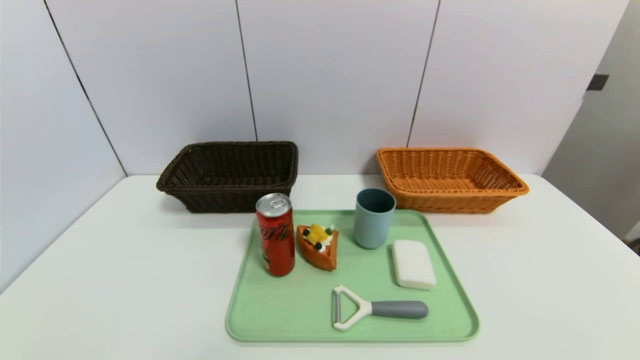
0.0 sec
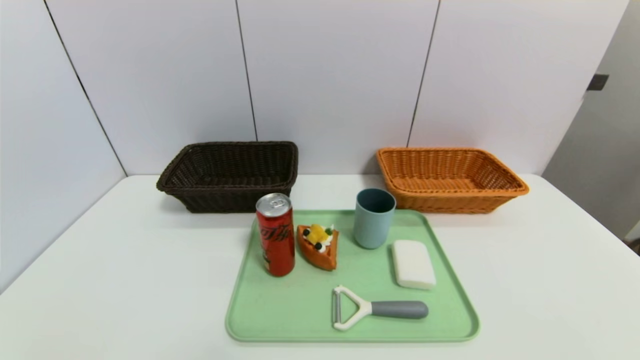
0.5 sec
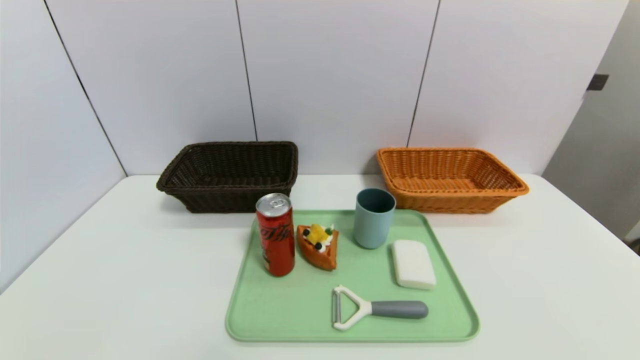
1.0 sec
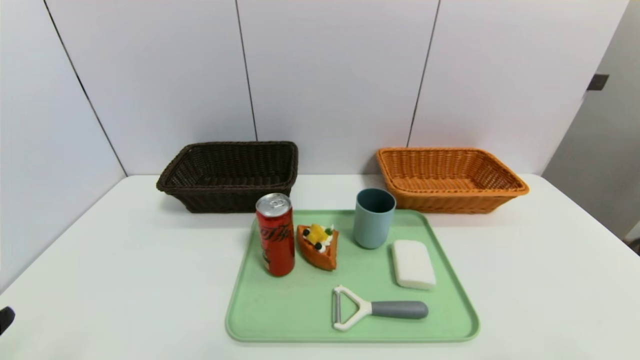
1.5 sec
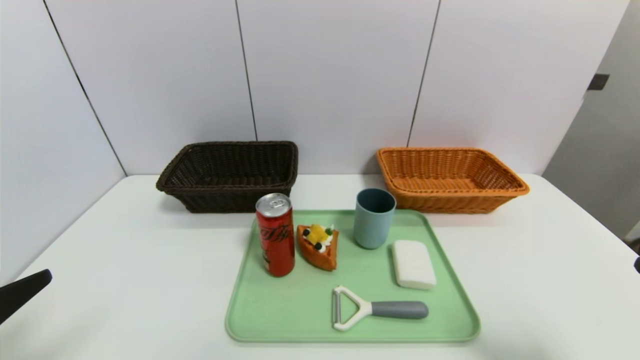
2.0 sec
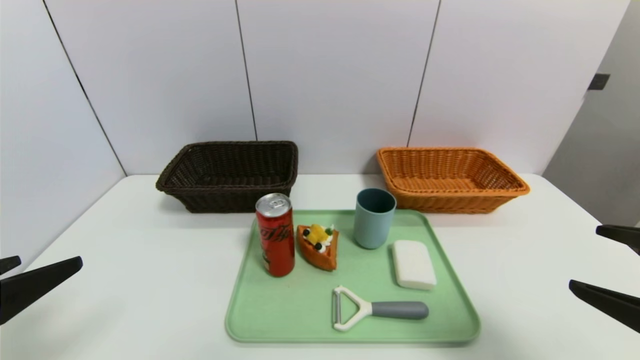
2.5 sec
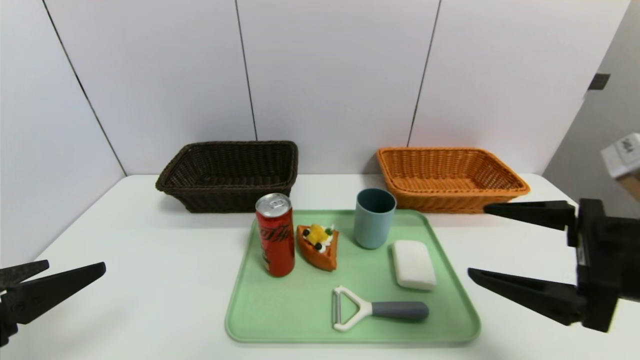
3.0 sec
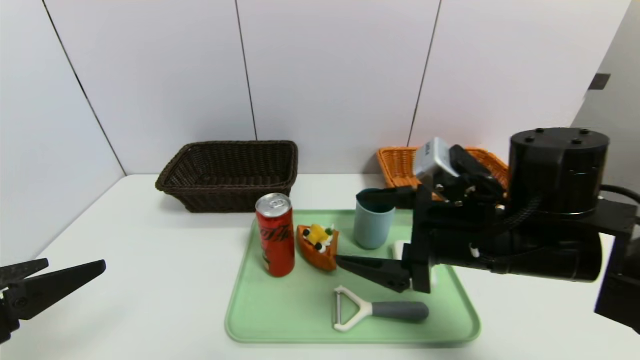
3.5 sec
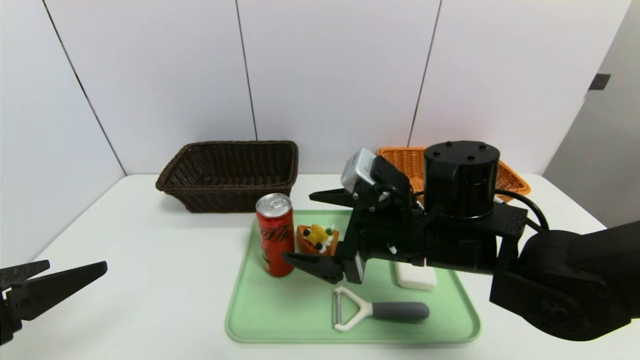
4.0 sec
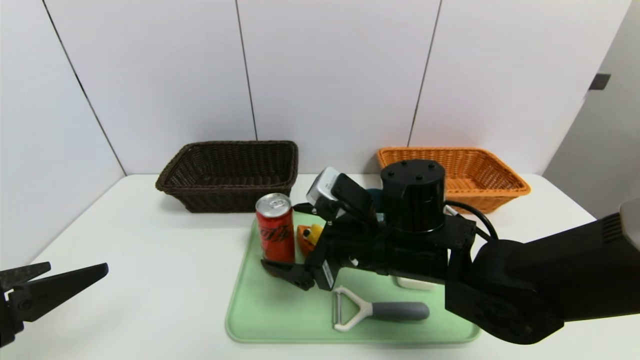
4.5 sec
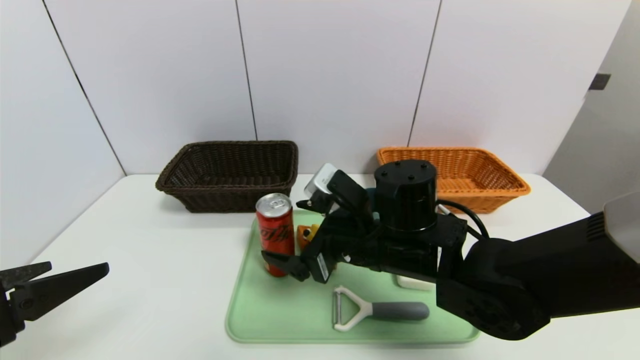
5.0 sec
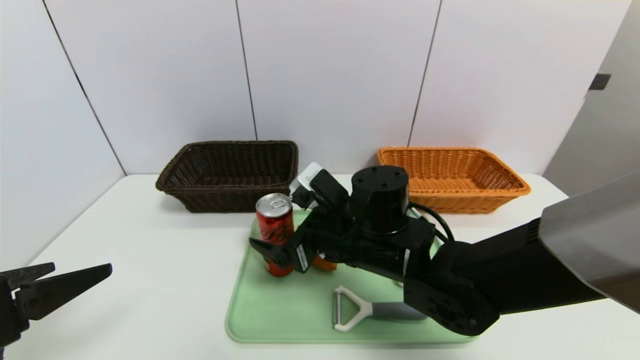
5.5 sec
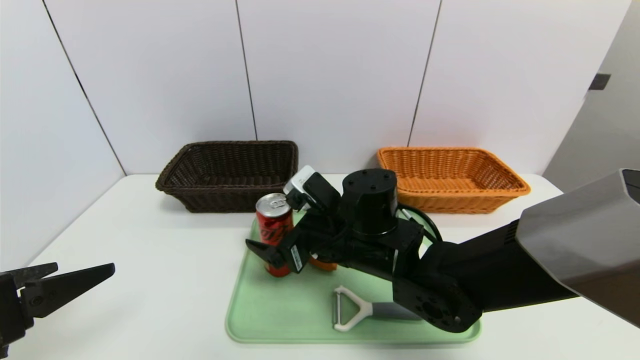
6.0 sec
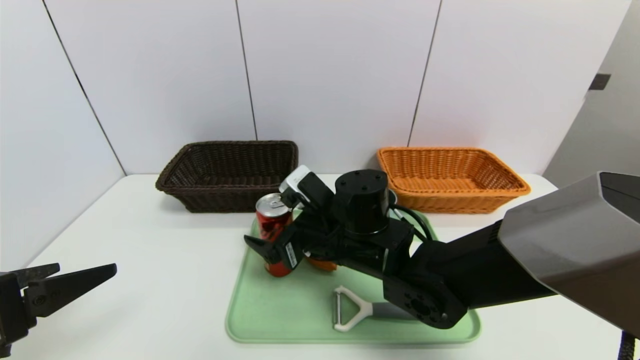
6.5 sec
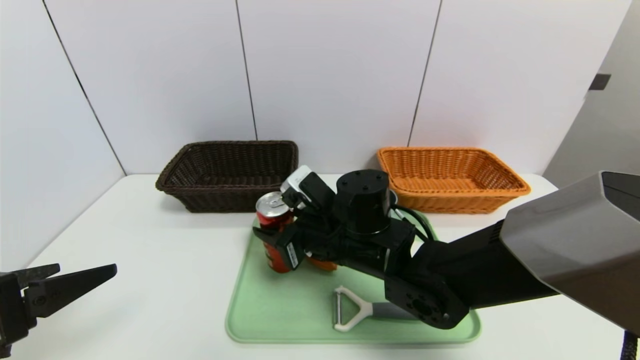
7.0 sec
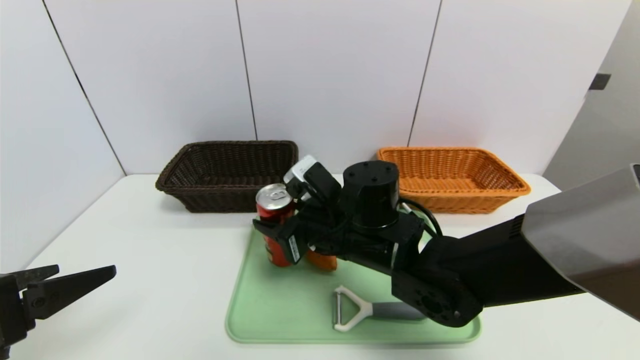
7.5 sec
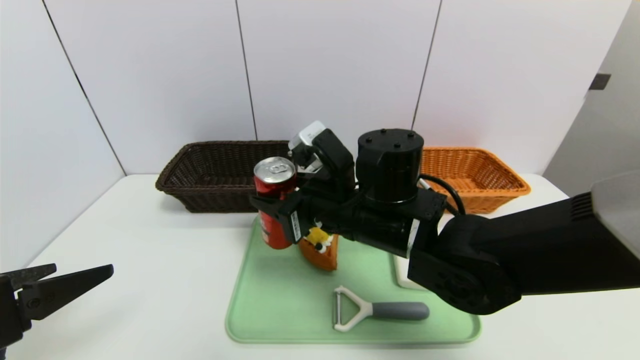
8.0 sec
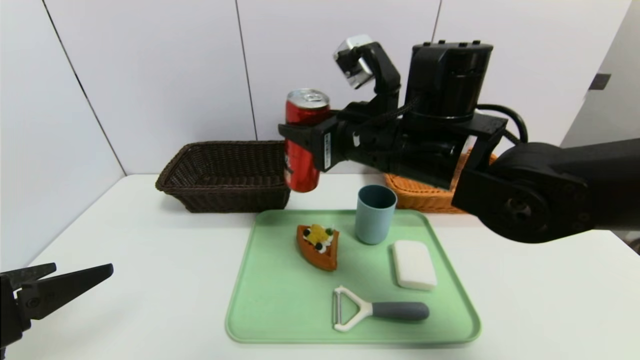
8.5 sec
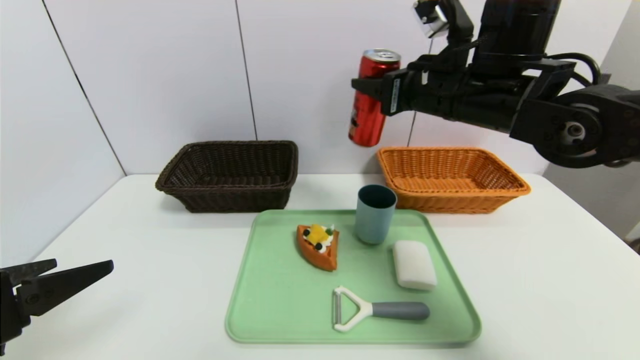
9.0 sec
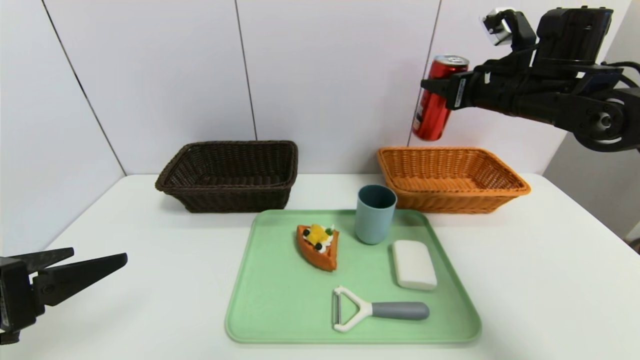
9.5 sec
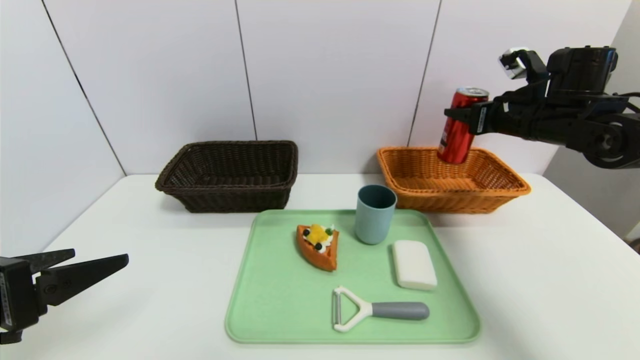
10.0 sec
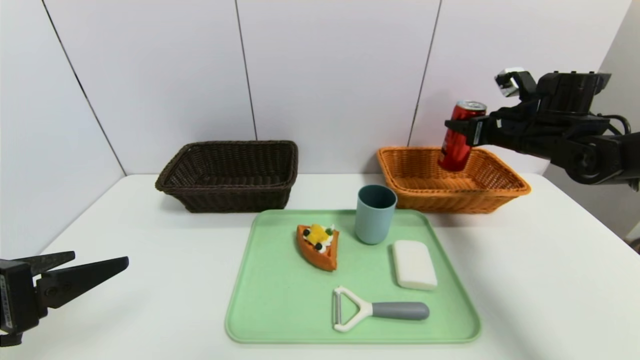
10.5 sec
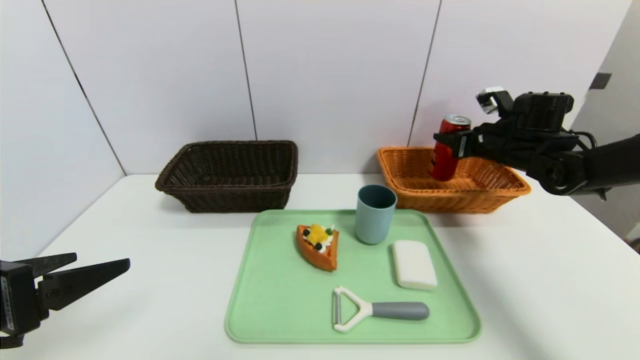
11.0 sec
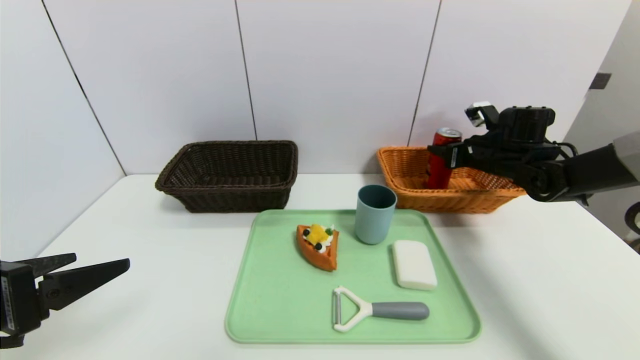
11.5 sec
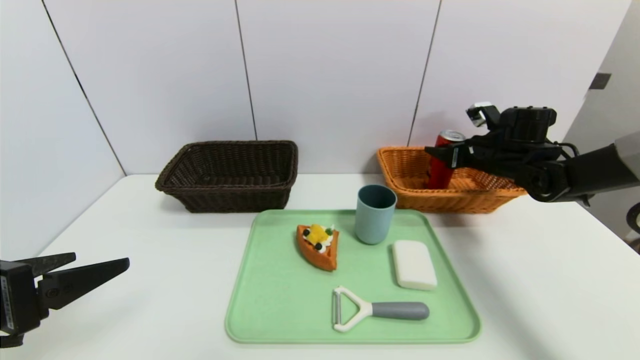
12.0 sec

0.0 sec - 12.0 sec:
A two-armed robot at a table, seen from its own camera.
Task of the whole recording: place the food in the right basket with the right gripper, and place the non food items in the left basket with the left gripper.
0.0 sec - 2.0 sec: The grippers both shift upward and forward by some 15 cm.
2.0 sec - 4.0 sec: The right gripper goes about 30 cm to the left and forward.
4.0 sec - 6.0 sec: The right gripper travels to the left by roughly 5 cm.
6.0 sec - 8.0 sec: The right gripper is displaced upward by approximately 5 cm, and closes.
8.0 sec - 10.0 sec: The right gripper shifts roughly 30 cm to the right and forward.
10.0 sec - 12.0 sec: The right gripper goes about 10 cm downward and forward, and opens up.

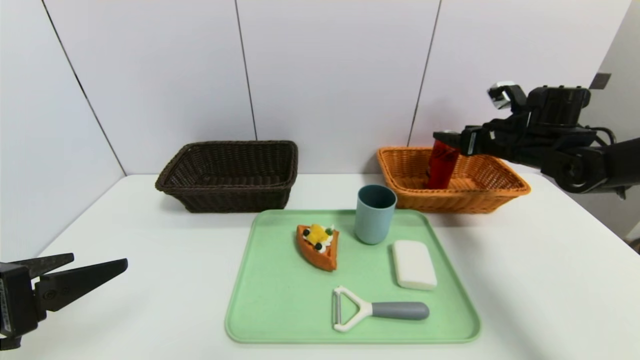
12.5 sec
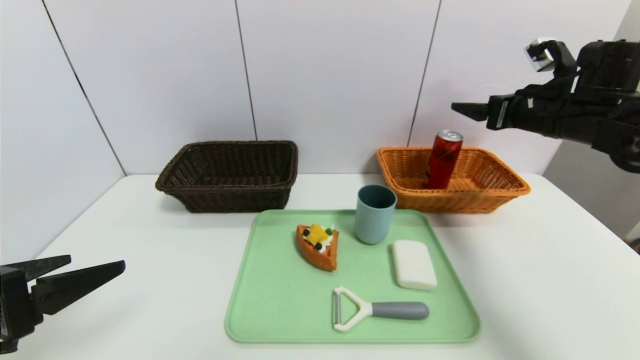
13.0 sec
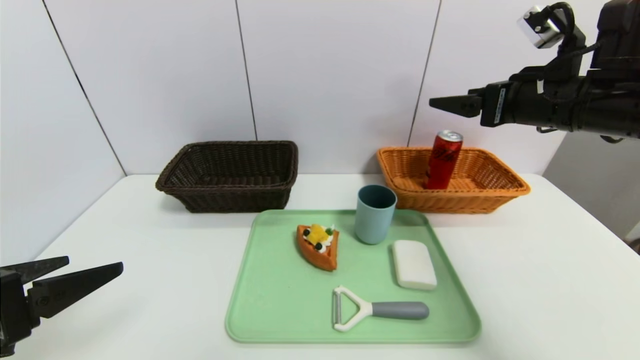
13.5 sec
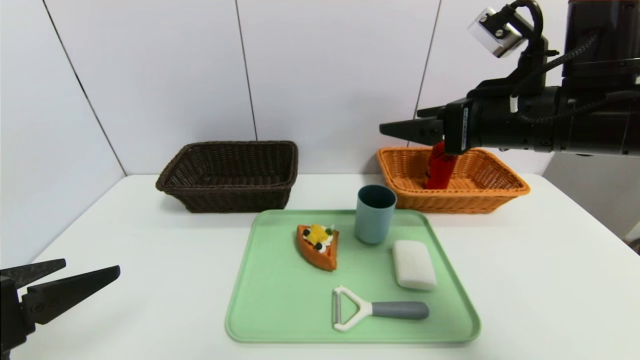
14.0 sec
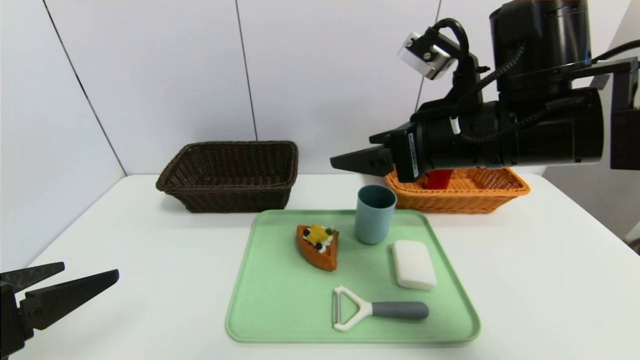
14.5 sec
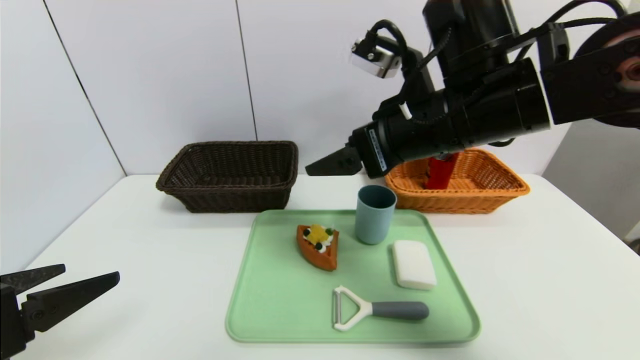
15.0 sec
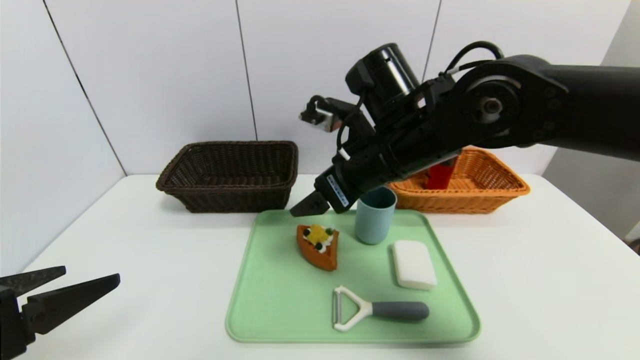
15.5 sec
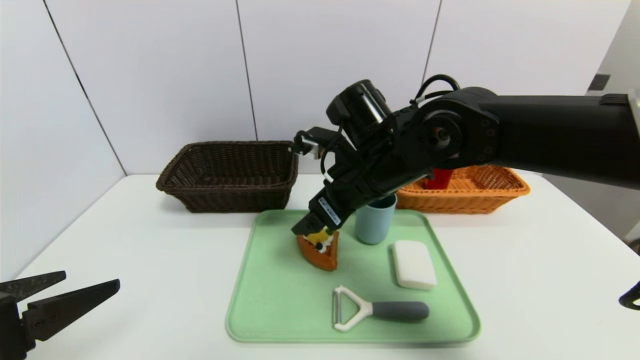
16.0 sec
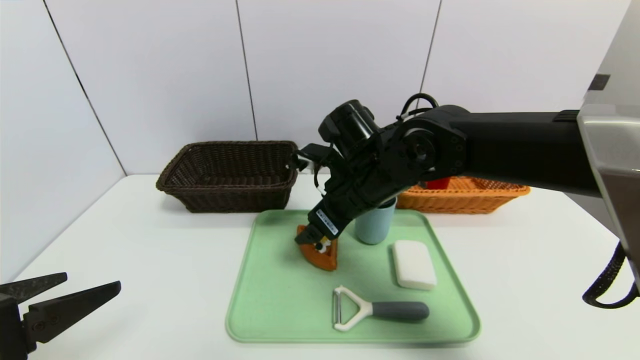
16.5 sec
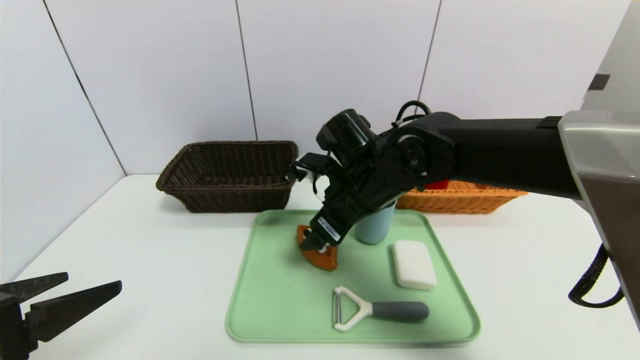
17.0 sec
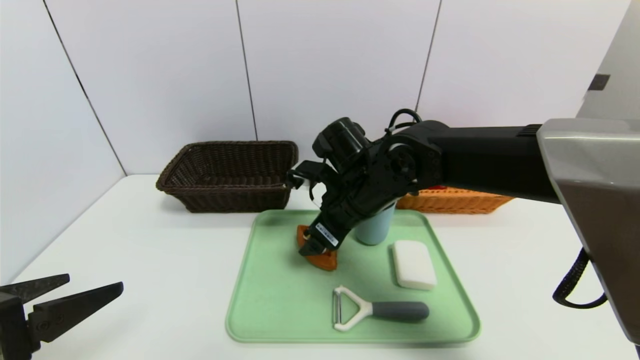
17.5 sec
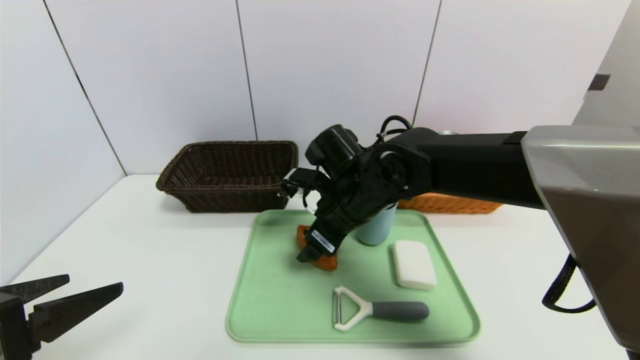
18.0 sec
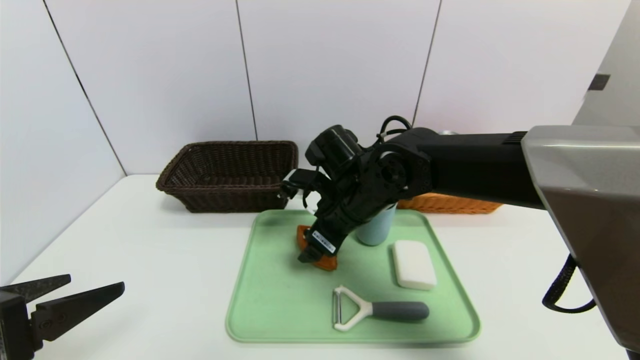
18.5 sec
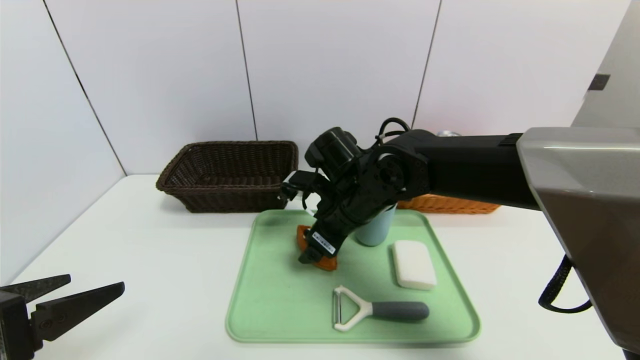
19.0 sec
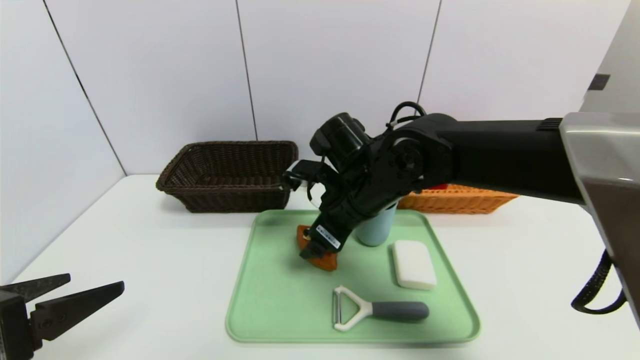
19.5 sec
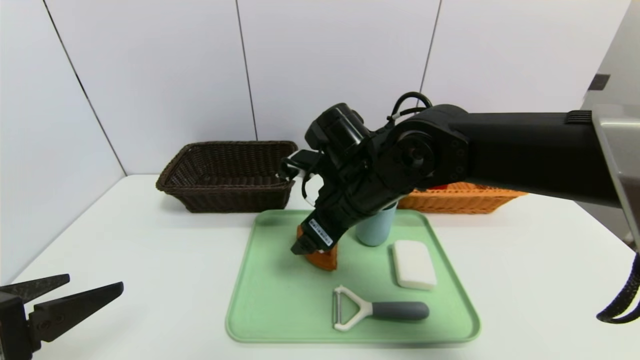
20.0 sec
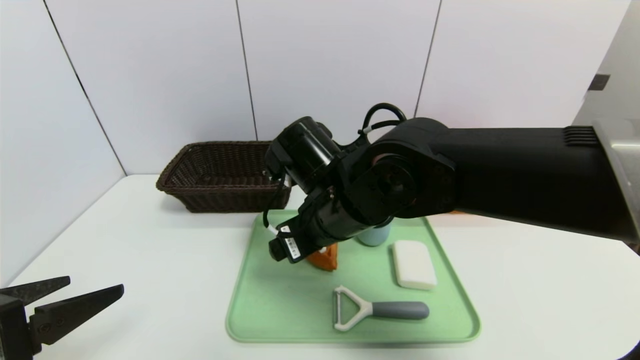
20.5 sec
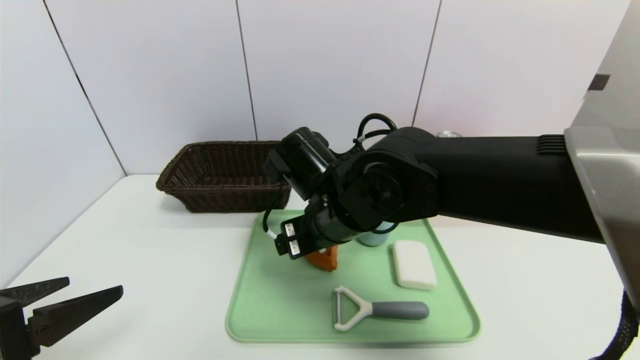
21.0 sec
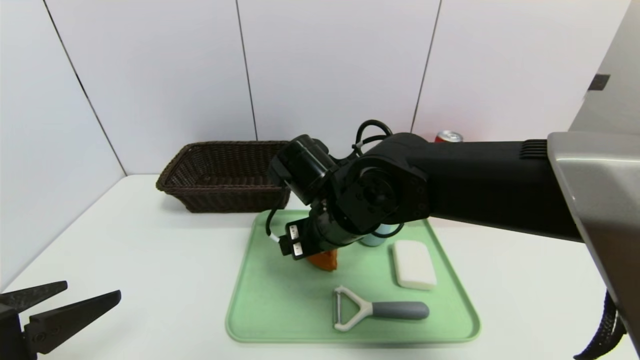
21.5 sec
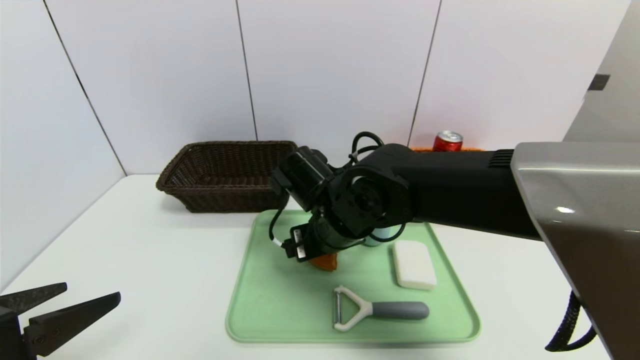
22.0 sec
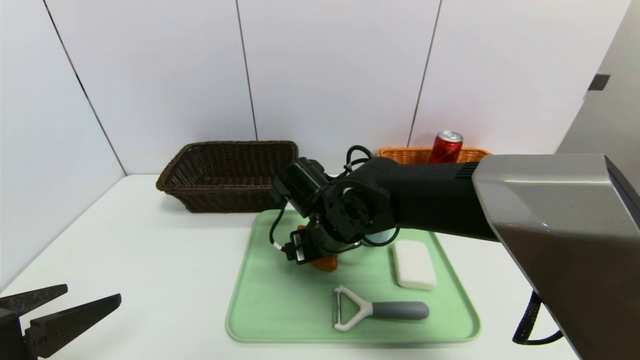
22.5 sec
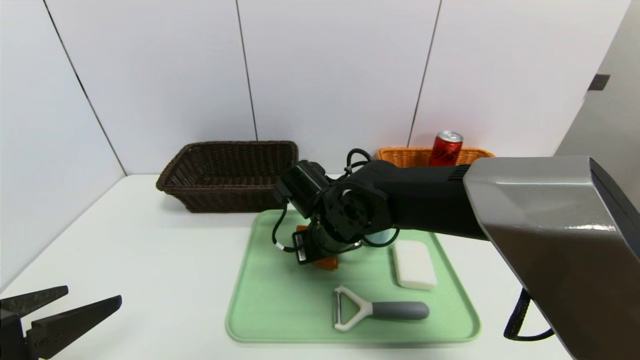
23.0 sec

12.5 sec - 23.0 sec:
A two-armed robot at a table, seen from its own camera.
Task of the whole recording: place the food in the right basket with the right gripper, and place the non food items in the left basket with the left gripper.
12.5 sec - 14.5 sec: The right gripper moves to the left, backward and upward, some 25 cm.
14.5 sec - 16.5 sec: The right gripper shifts some 15 cm to the left, downward and forward.
16.5 sec - 19.0 sec: The grippers stay close to where they were, moving slightly.
19.0 sec - 21.0 sec: The right gripper travels backward by approximately 5 cm.
21.0 sec - 23.0 sec: The right gripper is displaced downward by about 5 cm, and closes its fingers.
